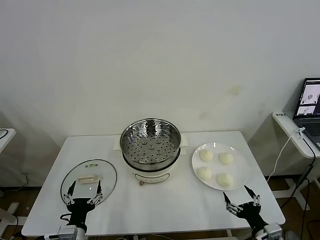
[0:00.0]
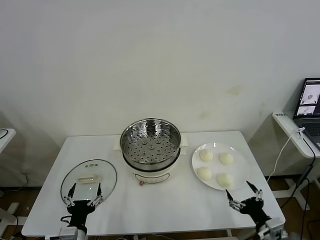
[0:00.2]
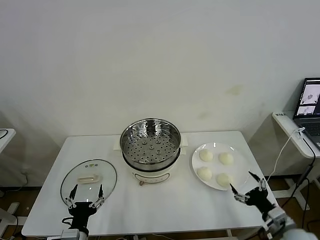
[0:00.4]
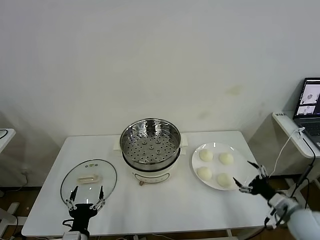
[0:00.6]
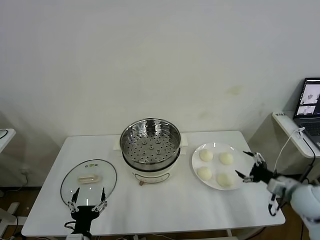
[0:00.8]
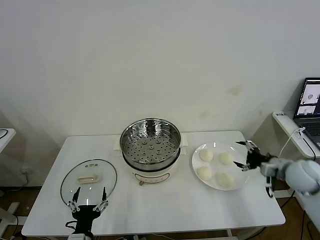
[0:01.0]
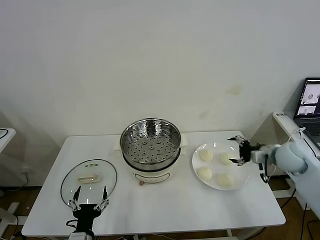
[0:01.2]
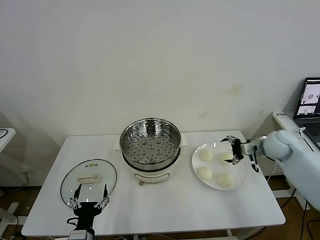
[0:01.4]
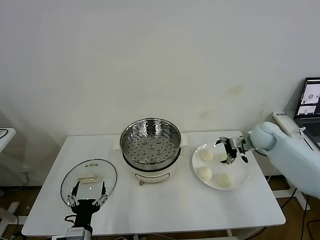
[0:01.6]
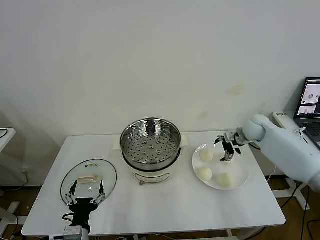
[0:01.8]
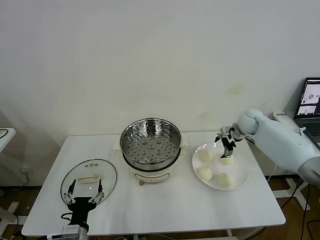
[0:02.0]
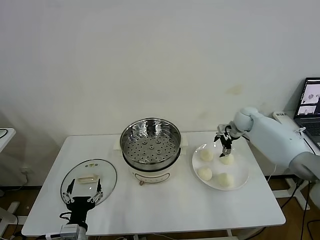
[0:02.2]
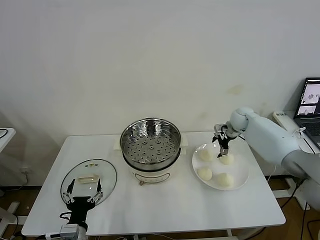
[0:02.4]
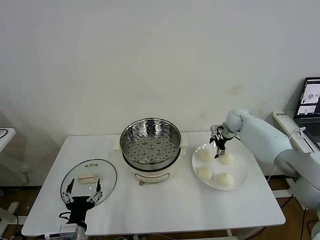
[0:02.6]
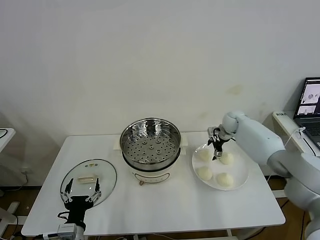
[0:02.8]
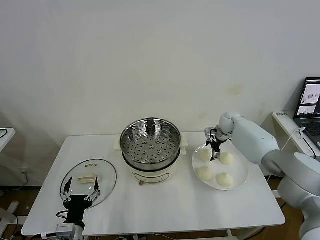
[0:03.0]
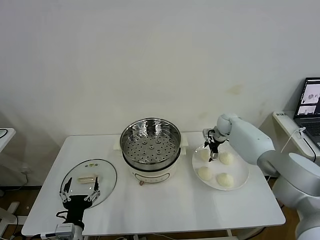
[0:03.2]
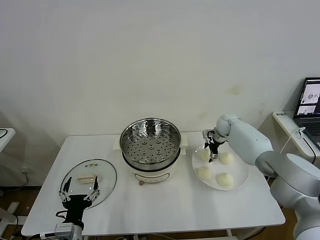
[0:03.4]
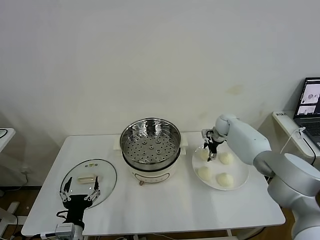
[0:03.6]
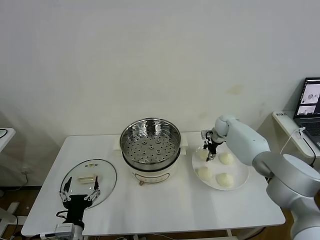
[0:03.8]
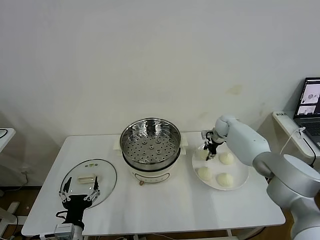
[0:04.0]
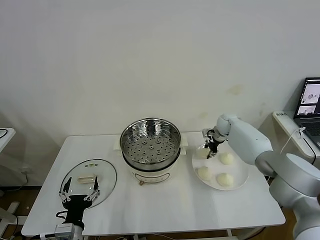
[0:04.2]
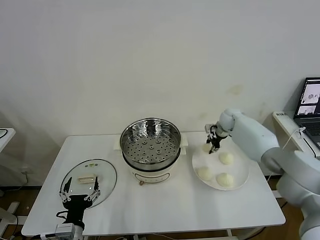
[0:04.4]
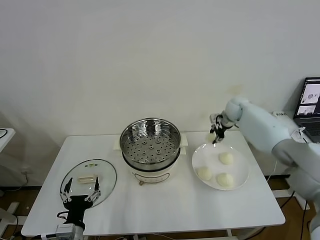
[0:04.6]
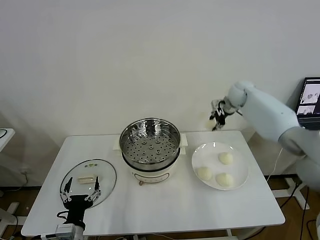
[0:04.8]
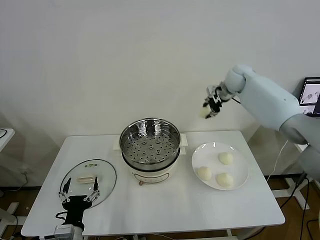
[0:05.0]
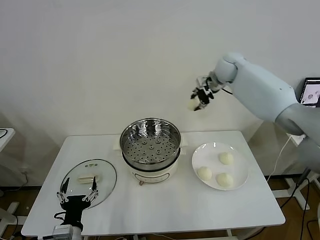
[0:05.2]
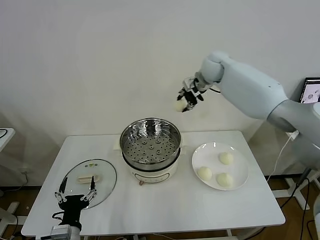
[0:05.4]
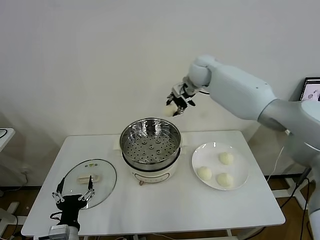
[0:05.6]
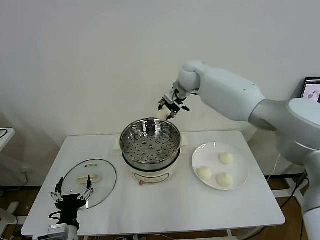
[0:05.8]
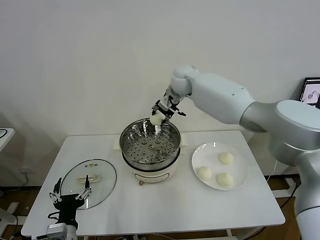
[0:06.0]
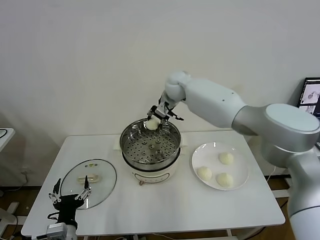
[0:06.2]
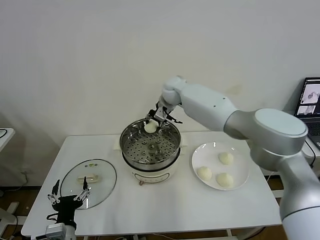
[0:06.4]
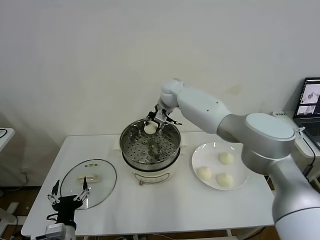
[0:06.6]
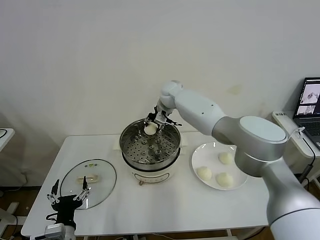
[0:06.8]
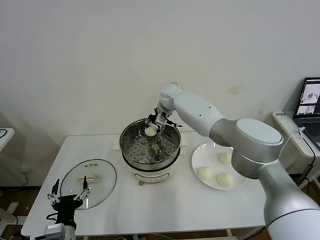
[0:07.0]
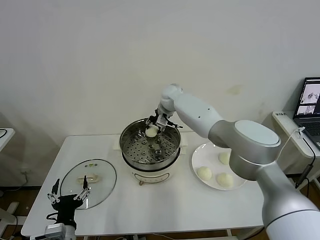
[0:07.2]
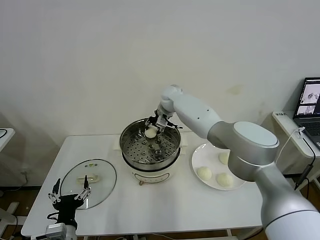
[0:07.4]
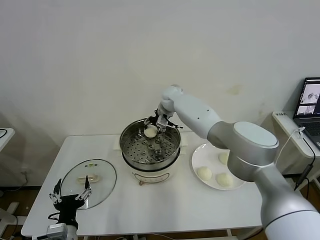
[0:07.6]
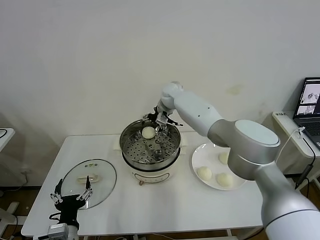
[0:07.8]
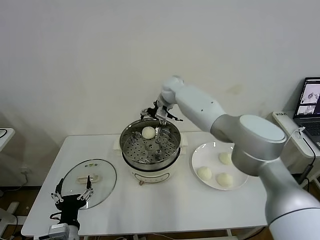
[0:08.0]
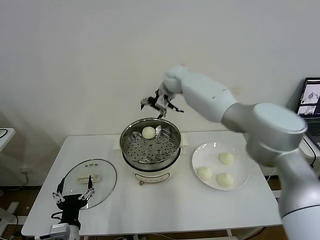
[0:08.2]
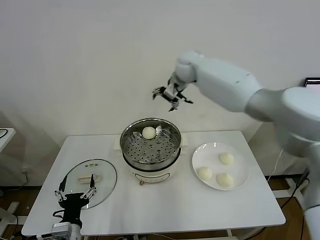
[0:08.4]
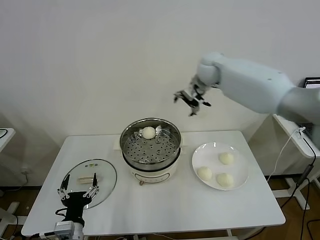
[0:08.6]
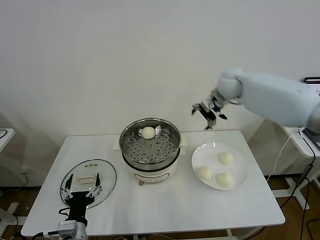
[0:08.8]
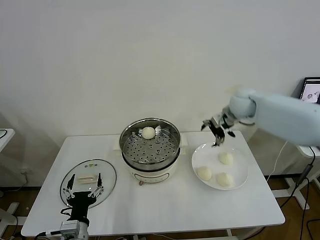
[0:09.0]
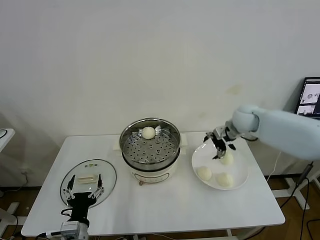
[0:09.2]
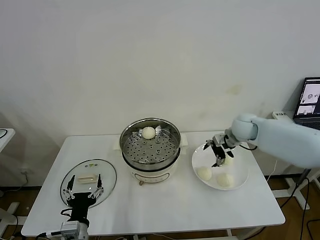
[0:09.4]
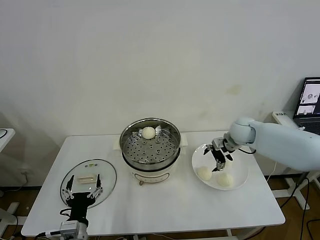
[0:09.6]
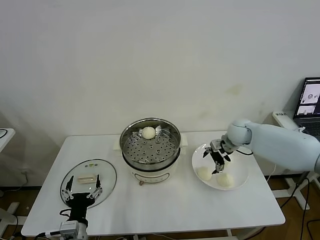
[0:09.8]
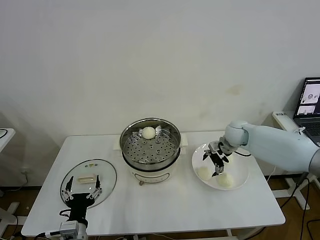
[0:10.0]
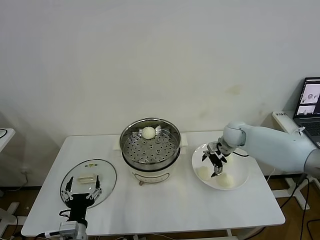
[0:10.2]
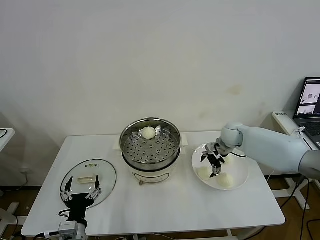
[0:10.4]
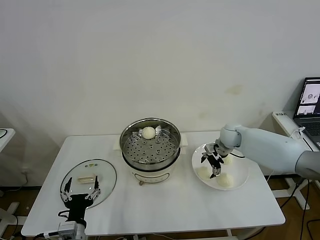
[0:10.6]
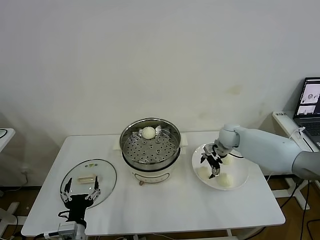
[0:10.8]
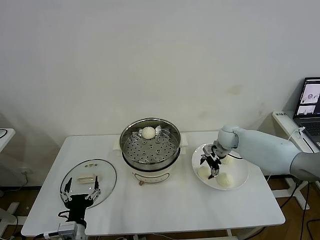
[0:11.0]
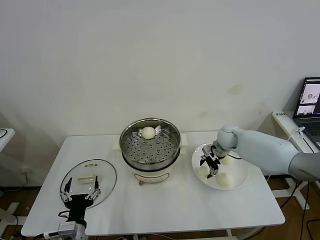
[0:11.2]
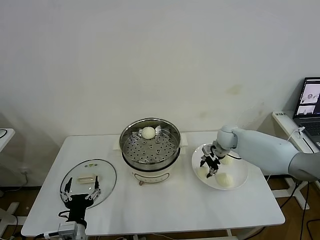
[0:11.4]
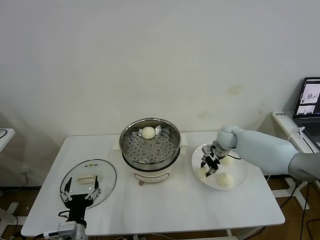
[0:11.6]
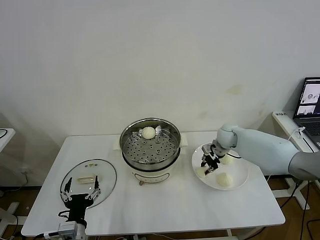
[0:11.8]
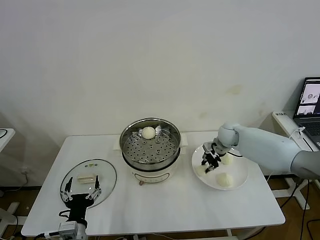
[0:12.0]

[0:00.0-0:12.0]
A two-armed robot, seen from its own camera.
Task of the whole recording: take steamed baozi put them in steamer then cover it.
Step, 0.0 to 3.8 s: Grasp the baozi in the plate with right gripper.
Step, 4.0 to 7.6 s: Place the baozi on the steamer with right gripper.
Step, 7.8 to 11.6 s: Grasp the baozi in the plate with right gripper.
1.6 to 3.0 s: The right gripper travels forward and to the left by some 10 cm.
3.0 to 4.4 s: The right gripper closes.
4.4 to 6.0 s: The right gripper is displaced to the left and upward by some 30 cm.
6.0 to 7.6 s: The right gripper travels downward by about 5 cm, and opens its fingers.
7.6 to 9.0 s: The right gripper heads to the right and backward, covering some 25 cm.
9.0 to 10.4 s: The right gripper moves downward, roughly 10 cm.
10.4 to 12.0 s: The right gripper closes.

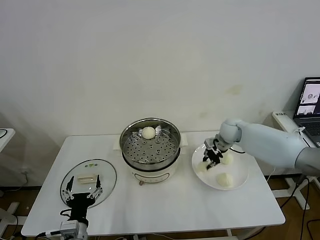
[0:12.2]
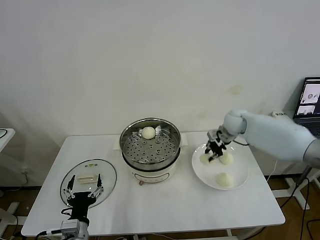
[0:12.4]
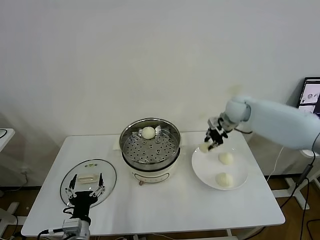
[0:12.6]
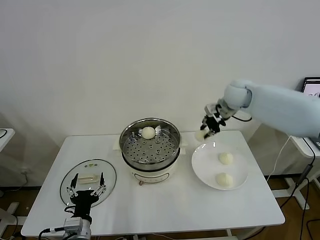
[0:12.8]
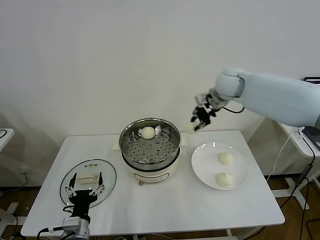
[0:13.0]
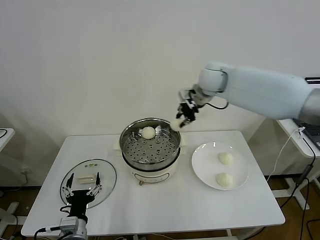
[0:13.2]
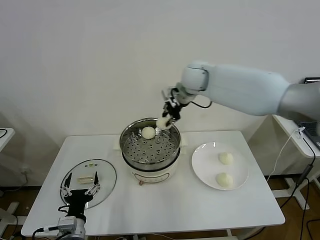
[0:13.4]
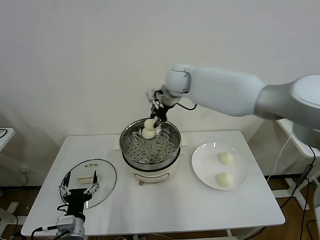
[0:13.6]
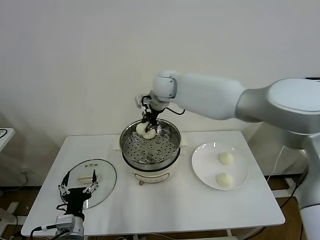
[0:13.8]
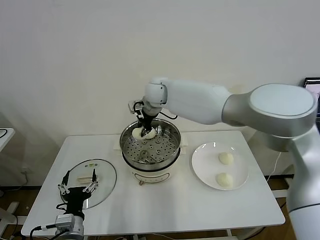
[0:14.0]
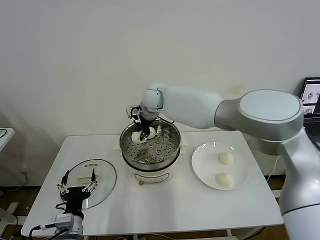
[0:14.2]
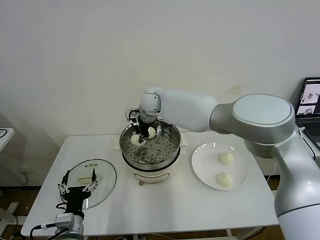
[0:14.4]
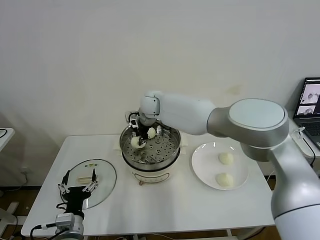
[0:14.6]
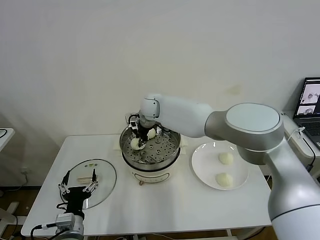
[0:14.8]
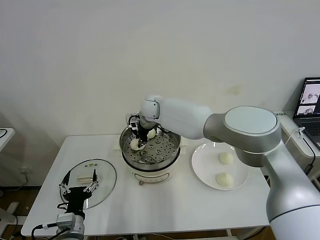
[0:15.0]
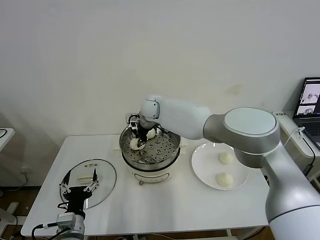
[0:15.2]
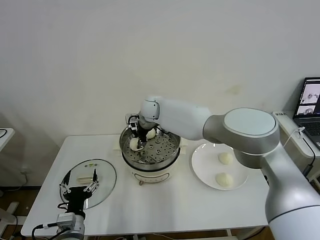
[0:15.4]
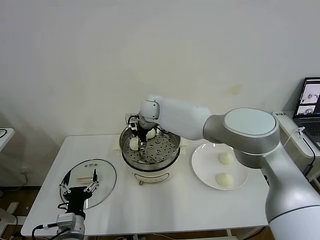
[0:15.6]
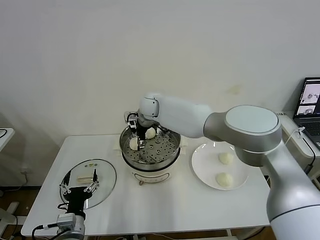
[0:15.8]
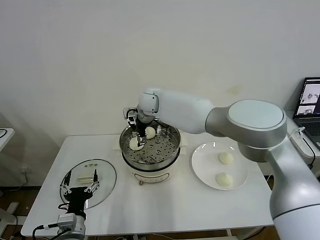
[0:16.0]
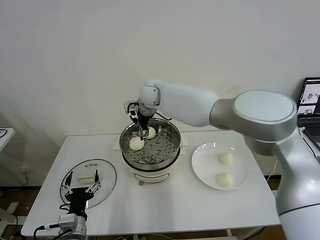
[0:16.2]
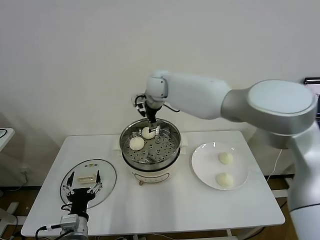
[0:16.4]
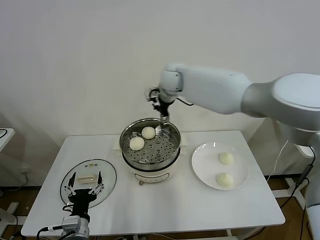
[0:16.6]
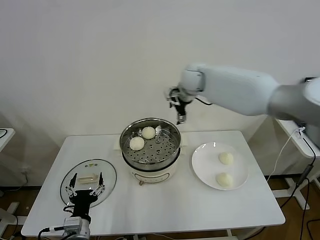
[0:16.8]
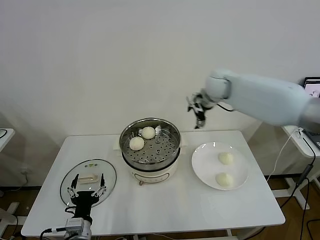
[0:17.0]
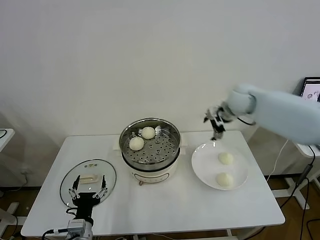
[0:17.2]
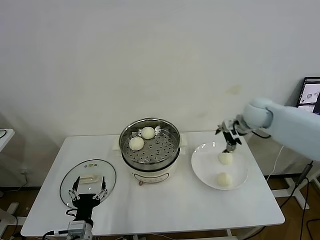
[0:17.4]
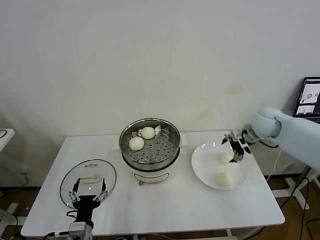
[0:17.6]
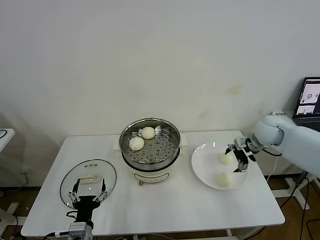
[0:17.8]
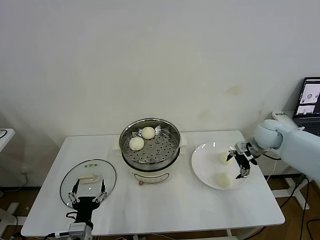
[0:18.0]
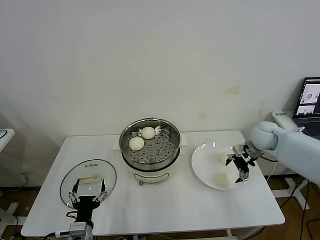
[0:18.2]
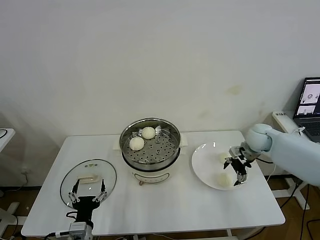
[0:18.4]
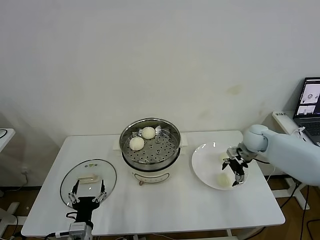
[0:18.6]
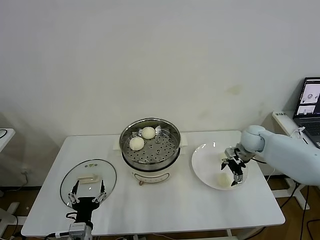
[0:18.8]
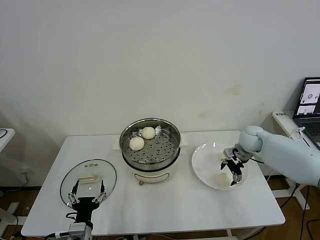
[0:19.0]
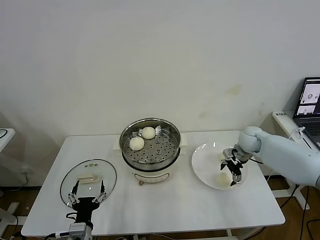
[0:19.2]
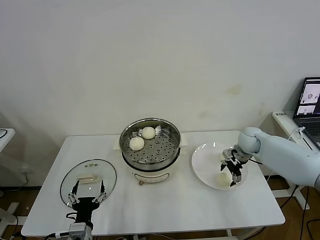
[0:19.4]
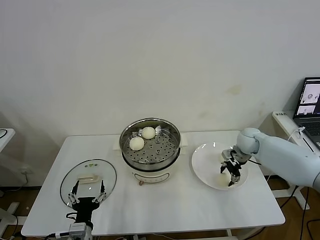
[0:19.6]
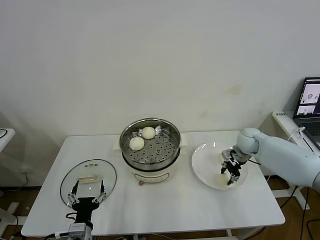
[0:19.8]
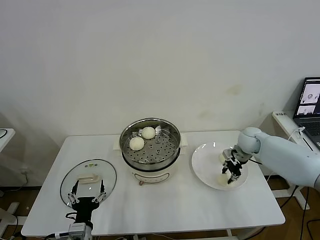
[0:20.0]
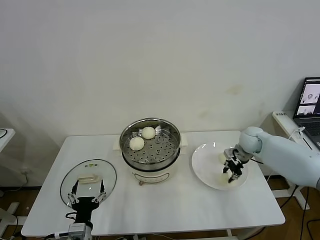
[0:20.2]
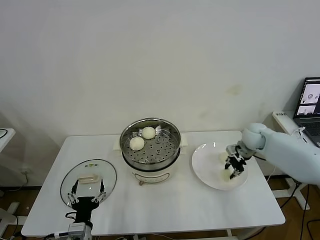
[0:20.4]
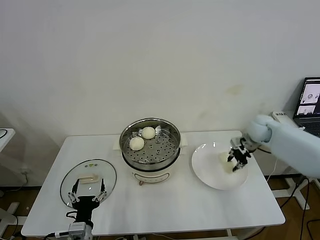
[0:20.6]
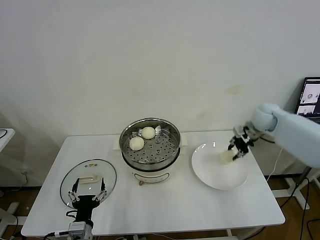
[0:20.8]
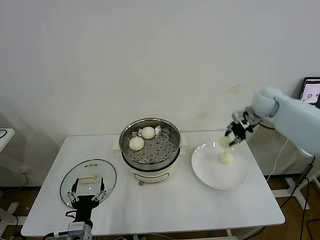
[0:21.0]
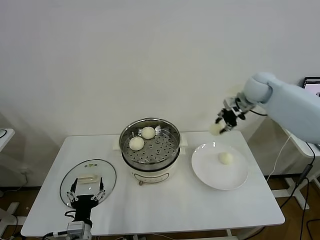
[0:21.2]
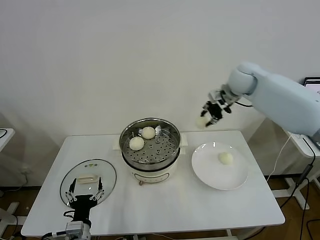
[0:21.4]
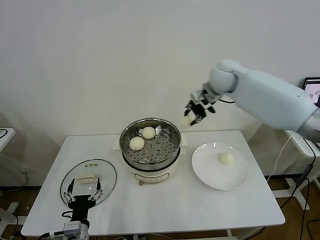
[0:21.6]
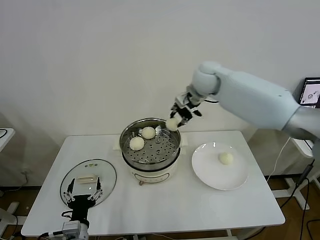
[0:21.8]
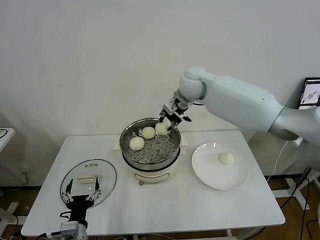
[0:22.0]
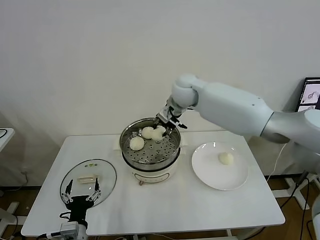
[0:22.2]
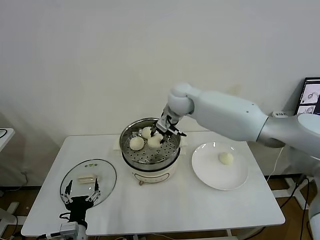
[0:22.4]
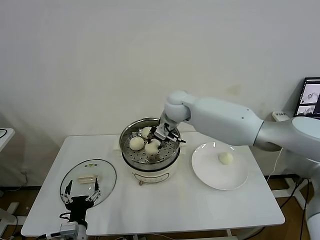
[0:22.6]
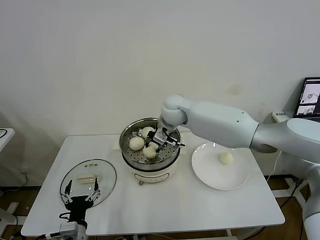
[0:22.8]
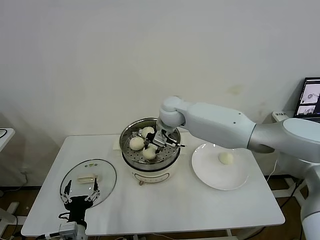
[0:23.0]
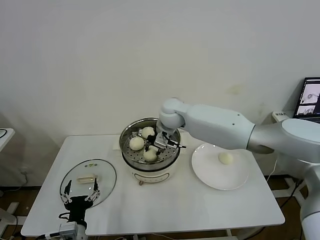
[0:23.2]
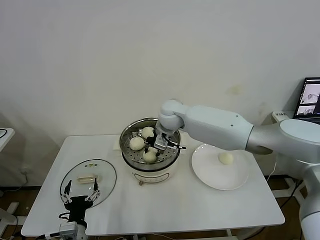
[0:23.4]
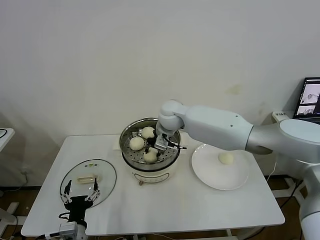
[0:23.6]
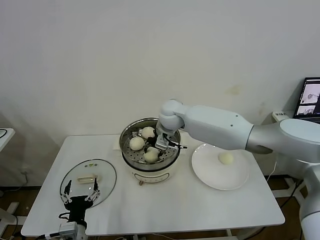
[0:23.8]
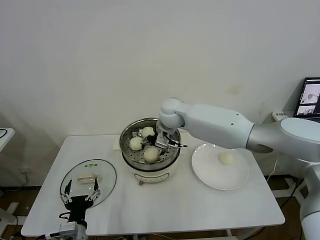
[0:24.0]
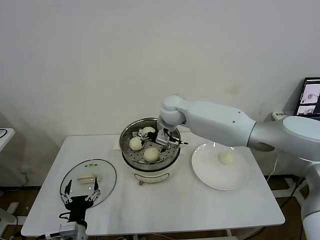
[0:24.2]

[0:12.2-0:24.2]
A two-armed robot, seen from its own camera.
Task of the whole recording: take steamed baozi put them in steamer then cover it.
Step, 12.2 to 15.6 s: Place the baozi on the steamer with right gripper.
Step, 16.0 to 20.0 s: Grasp the baozi in the plate with right gripper.
Step, 20.2 to 24.0 s: Place the baozi on the steamer with right gripper.
12.2 to 13.8 s: The right gripper shifts some 30 cm to the left and upward.
13.8 to 15.2 s: The right gripper is displaced downward by approximately 10 cm.
15.2 to 16.6 s: The right gripper shifts approximately 15 cm upward and to the right, and opens up.
16.6 to 18.2 s: The right gripper moves to the right and downward, roughly 35 cm.
18.2 to 19.8 s: The right gripper is displaced downward by approximately 5 cm, and closes.
19.8 to 21.2 s: The right gripper goes approximately 20 cm upward.
21.2 to 22.6 s: The right gripper shifts approximately 25 cm to the left.
22.6 to 24.2 s: The right gripper opens its fingers.
